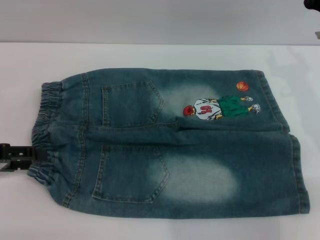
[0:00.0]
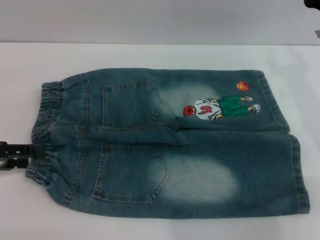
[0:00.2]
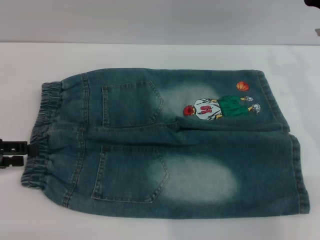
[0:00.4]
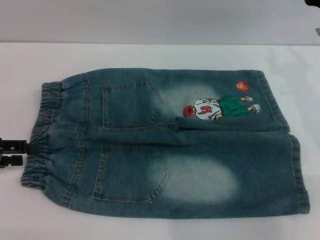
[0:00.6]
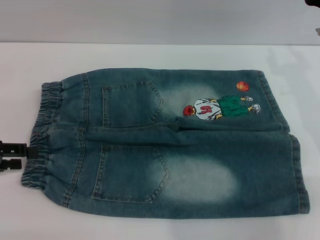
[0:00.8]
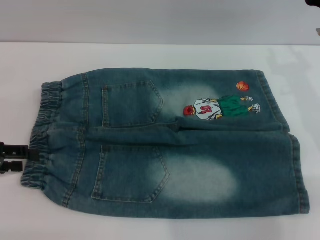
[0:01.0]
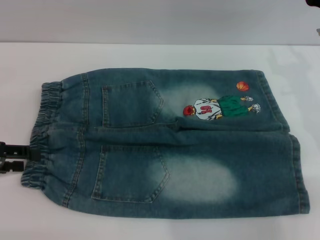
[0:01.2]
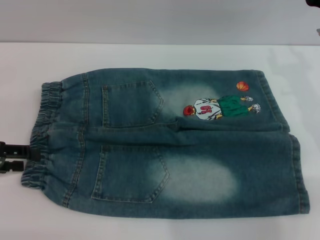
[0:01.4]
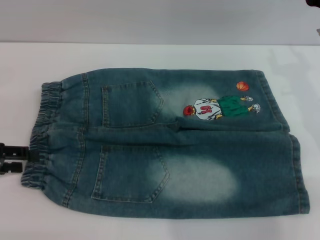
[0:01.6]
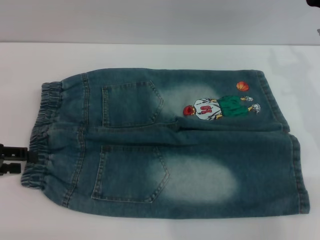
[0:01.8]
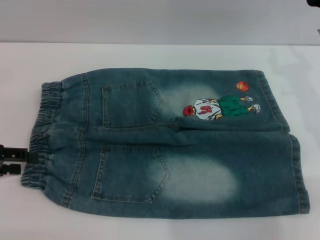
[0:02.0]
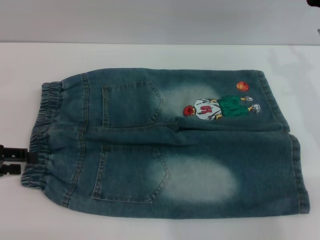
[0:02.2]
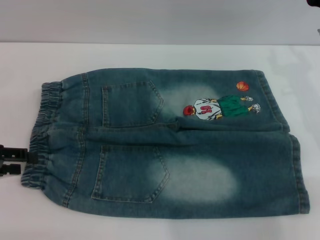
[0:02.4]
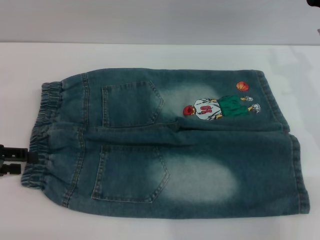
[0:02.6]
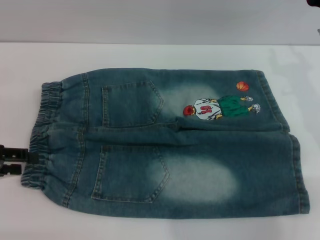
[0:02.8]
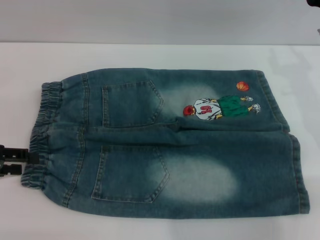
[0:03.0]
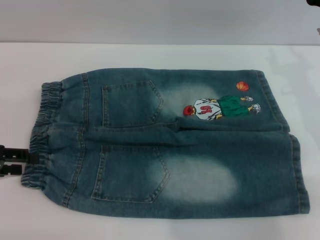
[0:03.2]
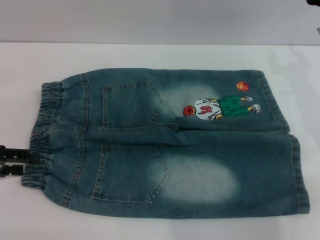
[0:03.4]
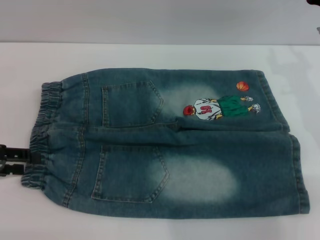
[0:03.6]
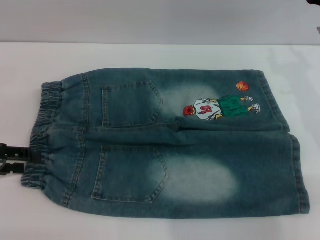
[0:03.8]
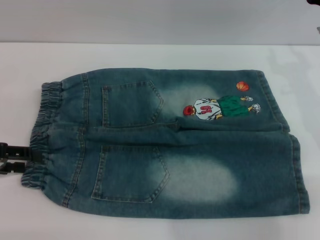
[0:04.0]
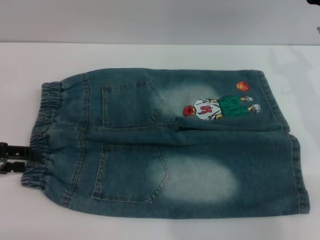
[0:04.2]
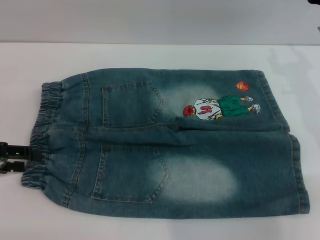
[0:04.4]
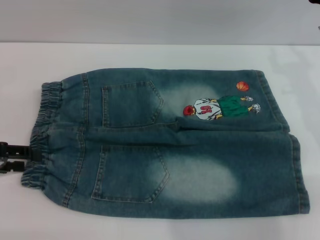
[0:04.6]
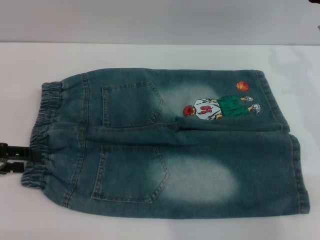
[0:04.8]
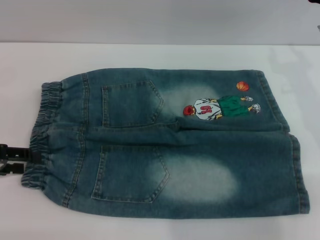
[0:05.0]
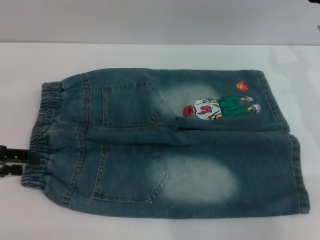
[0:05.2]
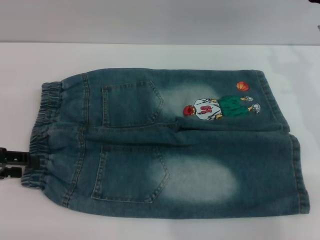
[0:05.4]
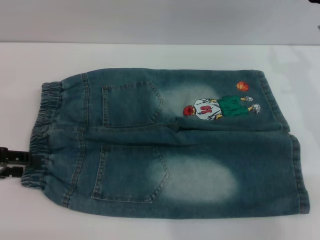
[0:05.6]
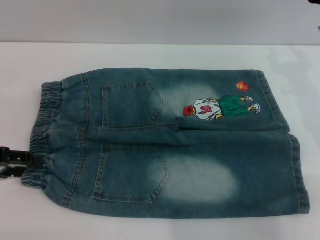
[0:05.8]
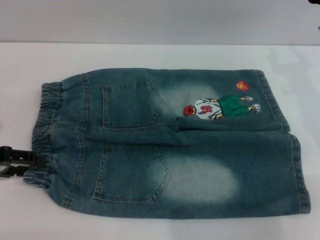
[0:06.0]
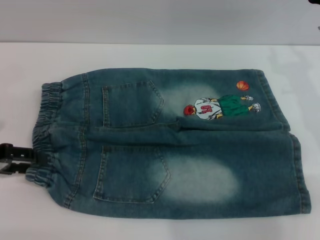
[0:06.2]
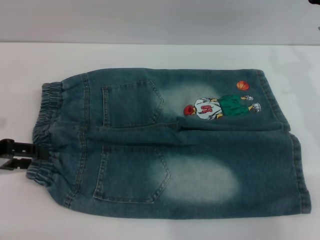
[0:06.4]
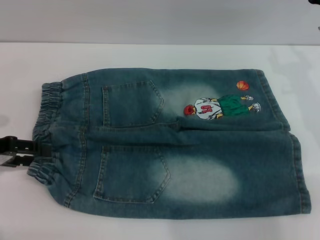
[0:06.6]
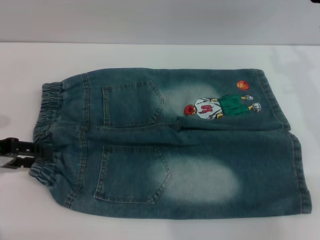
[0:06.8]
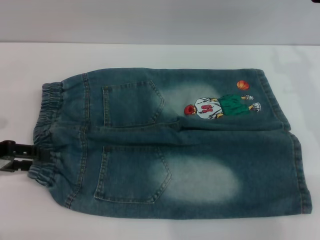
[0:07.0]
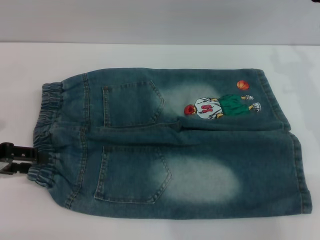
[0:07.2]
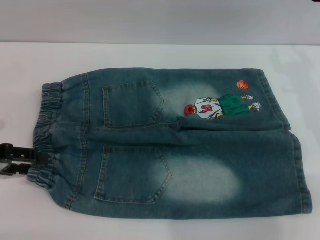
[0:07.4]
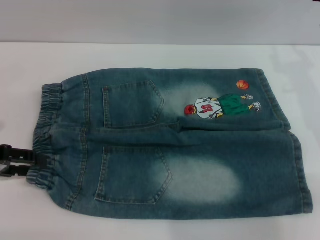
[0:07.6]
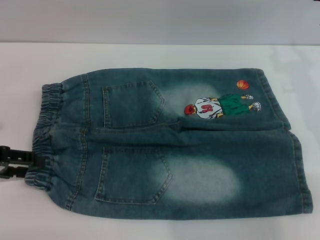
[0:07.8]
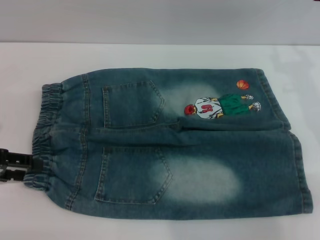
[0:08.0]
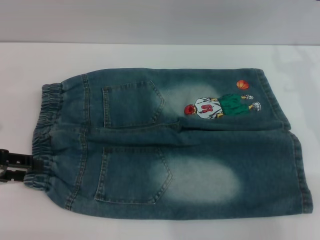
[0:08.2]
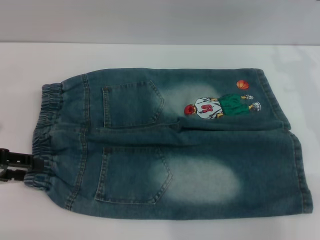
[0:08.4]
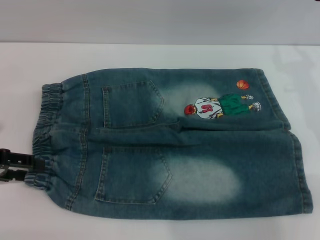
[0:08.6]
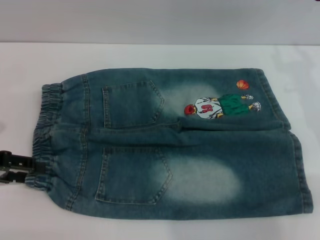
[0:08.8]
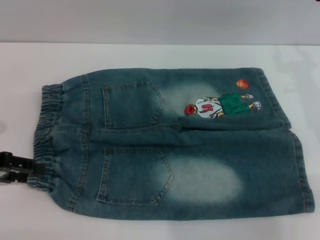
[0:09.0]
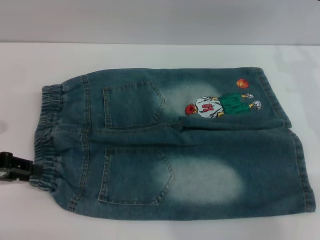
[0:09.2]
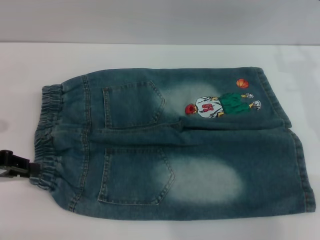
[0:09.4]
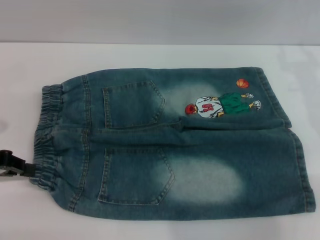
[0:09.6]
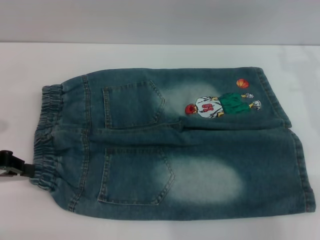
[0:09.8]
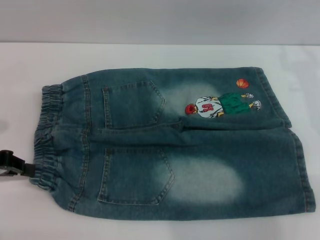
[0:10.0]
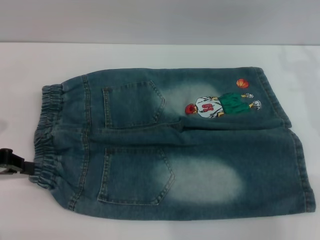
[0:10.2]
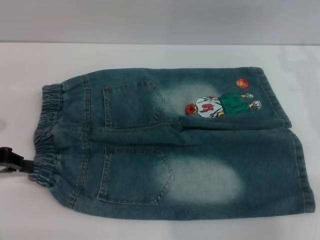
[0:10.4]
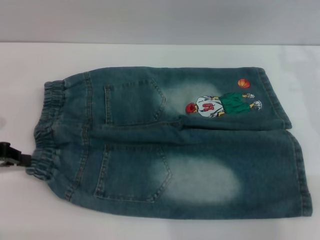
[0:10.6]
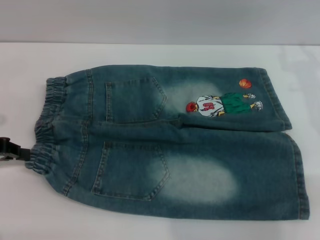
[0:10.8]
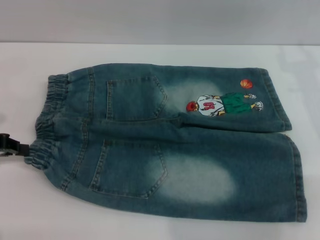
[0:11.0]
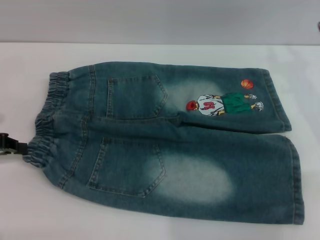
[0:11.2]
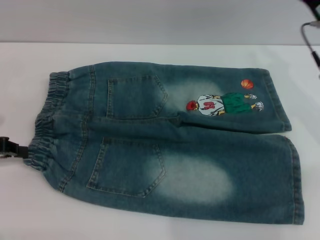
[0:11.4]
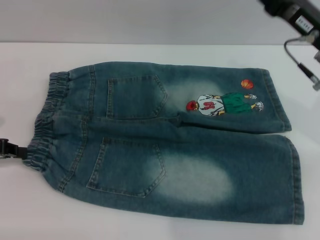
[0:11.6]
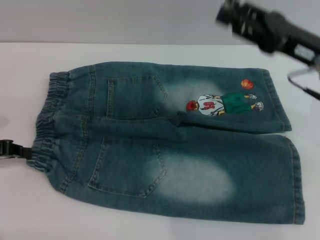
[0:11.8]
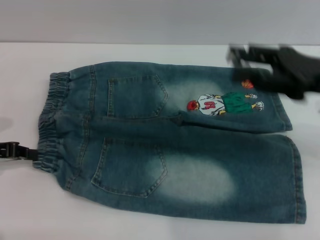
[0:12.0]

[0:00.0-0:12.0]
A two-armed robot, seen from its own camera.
0:00.0 to 0:01.6: There are only small adjustments of the grippers.
0:01.6 to 0:06.0: Both grippers stay about where they are.
0:06.0 to 0:07.6: There are only small adjustments of the grippers.
0:07.6 to 0:09.0: The two grippers keep their place.
0:09.0 to 0:10.4: The left gripper closes.
0:10.4 to 0:12.0: The right gripper moves about 5 cm.

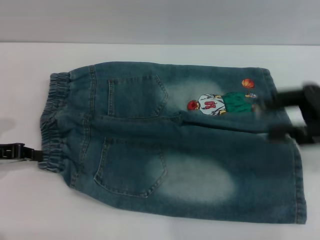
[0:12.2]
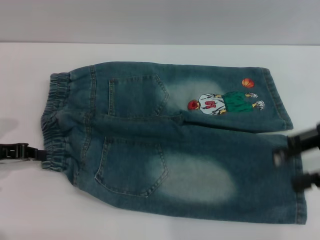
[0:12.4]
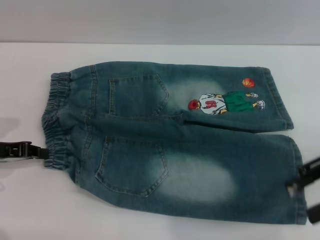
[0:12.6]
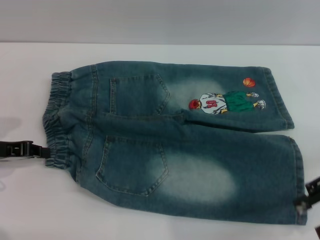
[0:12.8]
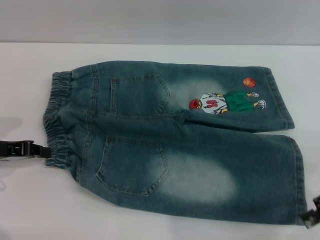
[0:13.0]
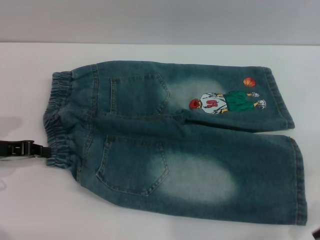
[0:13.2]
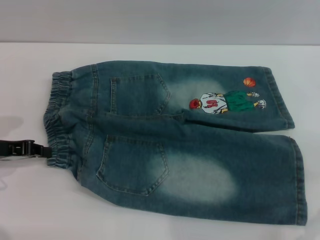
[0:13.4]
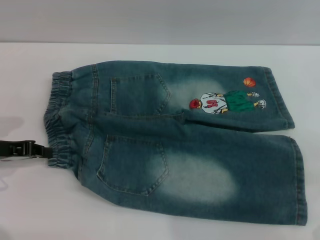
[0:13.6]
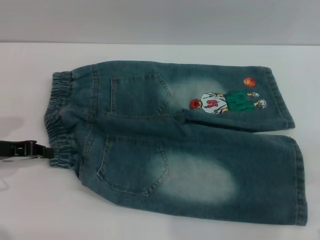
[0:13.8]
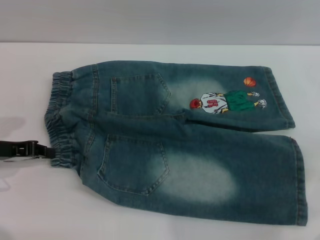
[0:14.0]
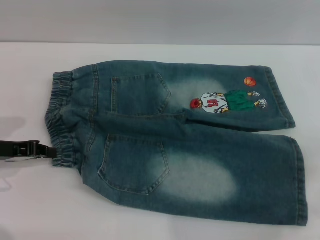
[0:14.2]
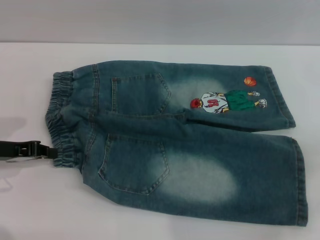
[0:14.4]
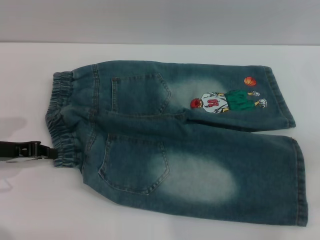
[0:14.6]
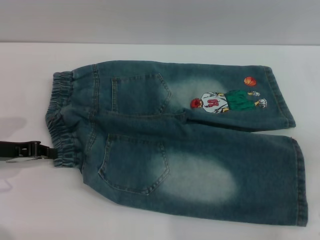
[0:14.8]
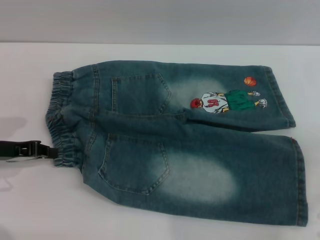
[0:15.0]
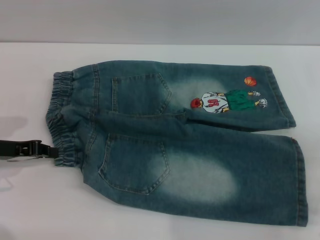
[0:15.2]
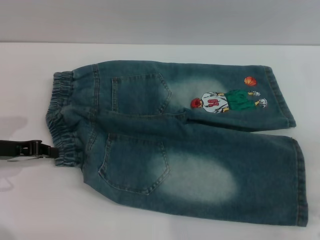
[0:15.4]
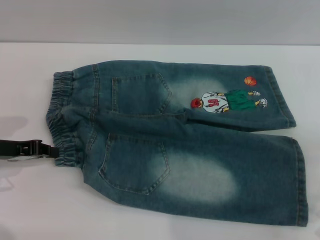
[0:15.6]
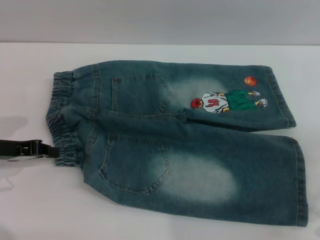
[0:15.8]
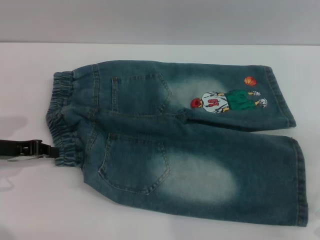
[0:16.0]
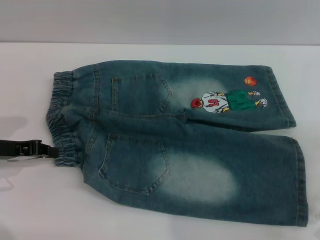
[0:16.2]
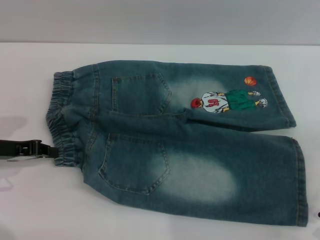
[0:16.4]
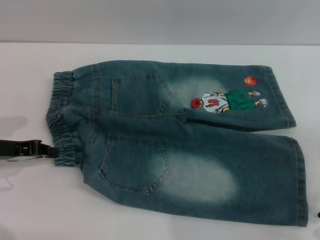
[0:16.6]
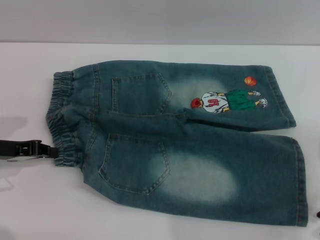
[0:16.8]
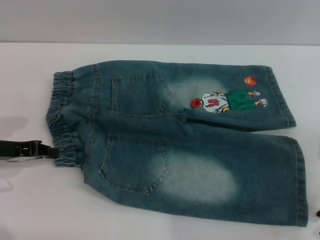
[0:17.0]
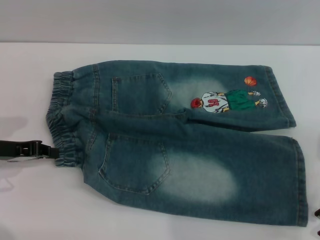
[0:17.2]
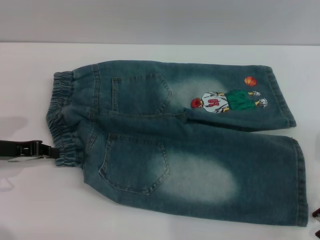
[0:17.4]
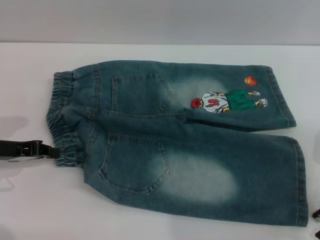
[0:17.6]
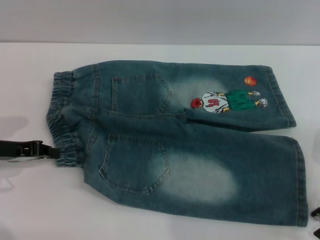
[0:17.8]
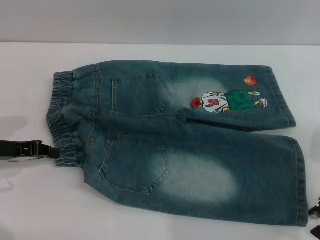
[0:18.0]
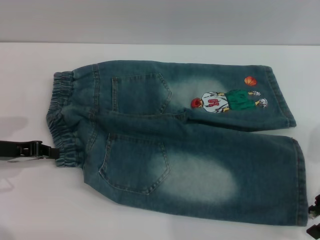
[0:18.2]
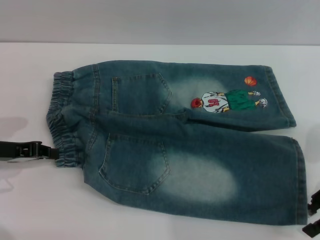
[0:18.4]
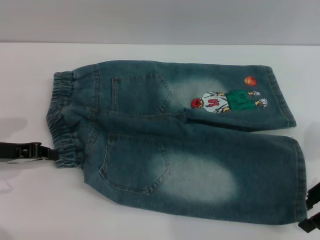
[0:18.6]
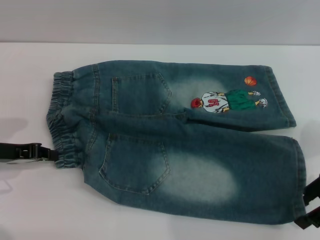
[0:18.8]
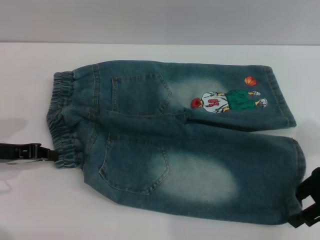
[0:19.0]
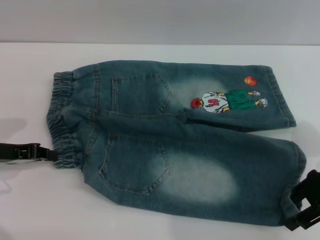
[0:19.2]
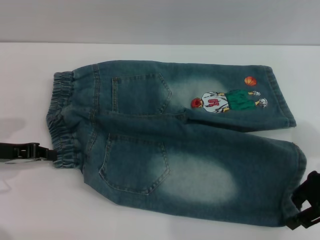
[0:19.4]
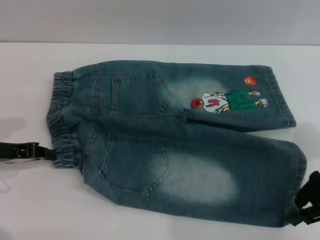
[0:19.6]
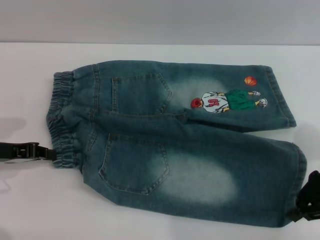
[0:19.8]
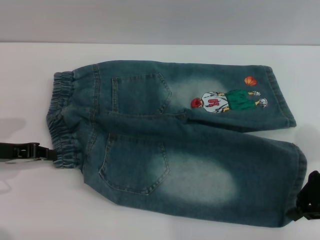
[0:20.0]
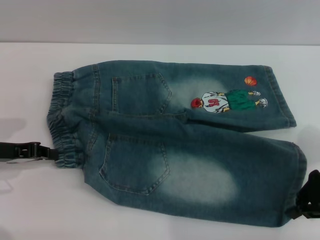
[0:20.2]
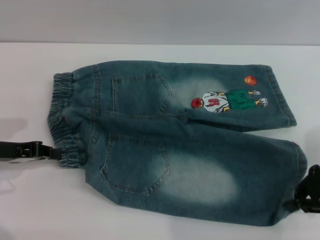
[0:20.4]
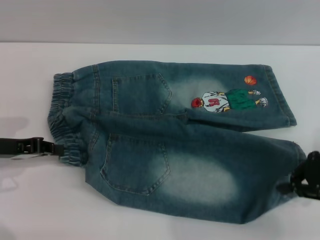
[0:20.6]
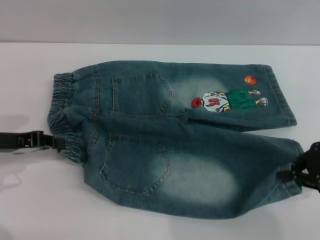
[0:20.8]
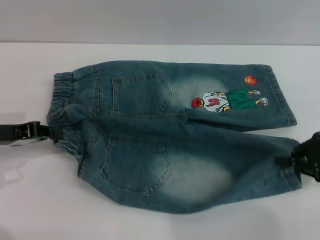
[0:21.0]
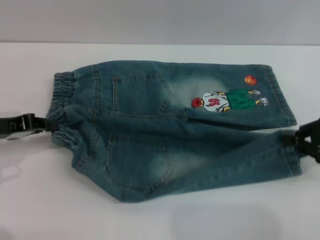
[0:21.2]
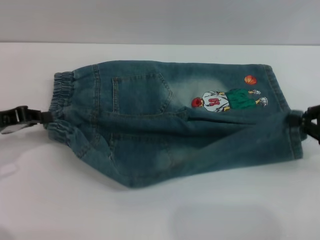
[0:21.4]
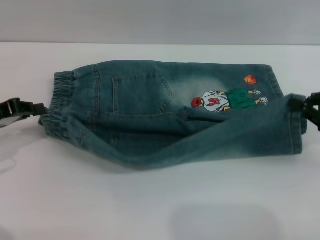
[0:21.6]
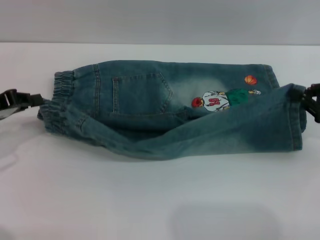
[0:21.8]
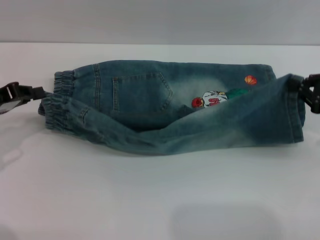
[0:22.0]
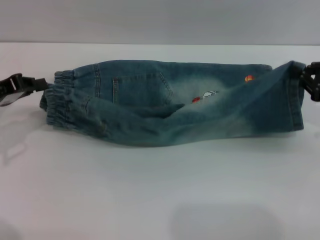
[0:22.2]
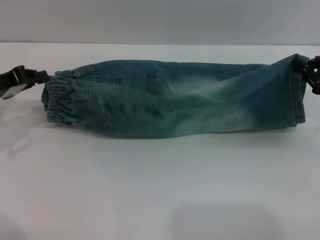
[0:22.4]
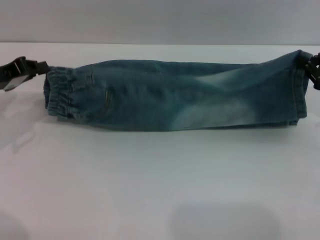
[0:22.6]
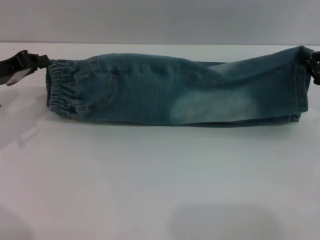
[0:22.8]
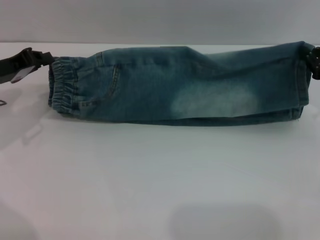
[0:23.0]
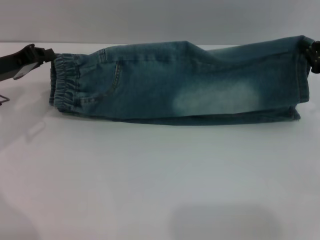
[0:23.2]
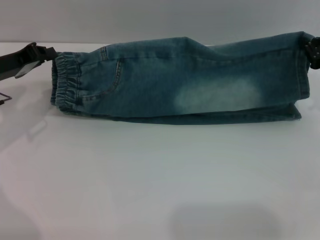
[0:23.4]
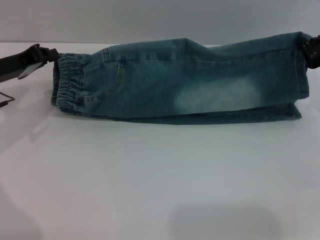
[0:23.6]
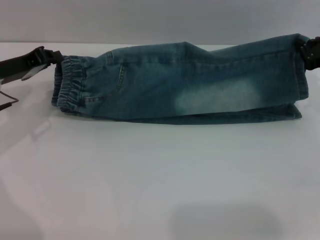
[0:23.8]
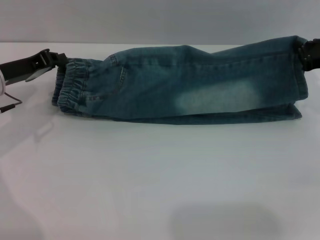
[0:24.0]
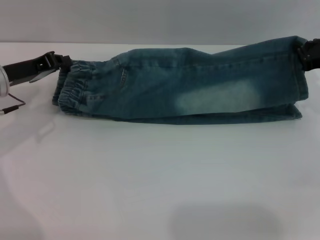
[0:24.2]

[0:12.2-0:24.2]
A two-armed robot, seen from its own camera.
0:12.2 to 0:13.8: The right gripper moves to the right, roughly 5 cm.
0:18.2 to 0:19.8: The right gripper closes up.
0:19.8 to 0:21.2: The right gripper moves to the right, about 5 cm, and closes.
0:21.2 to 0:22.6: The right gripper moves forward, approximately 5 cm.
0:22.6 to 0:24.2: There are only small adjustments of the grippers.
